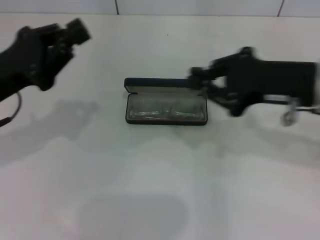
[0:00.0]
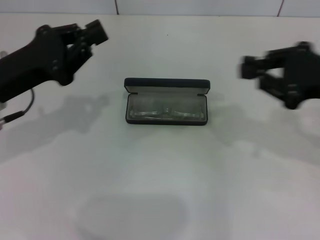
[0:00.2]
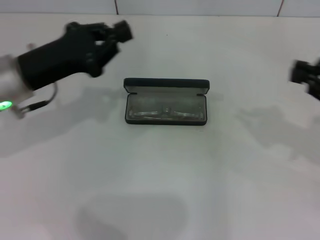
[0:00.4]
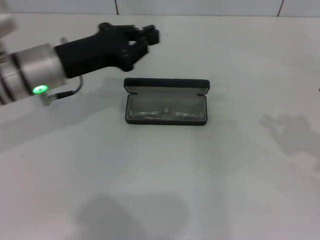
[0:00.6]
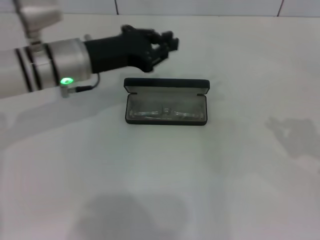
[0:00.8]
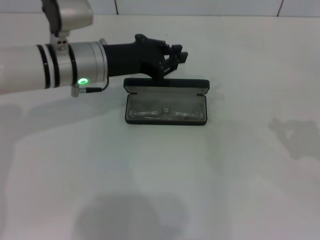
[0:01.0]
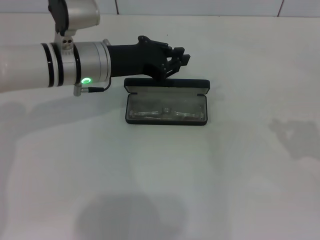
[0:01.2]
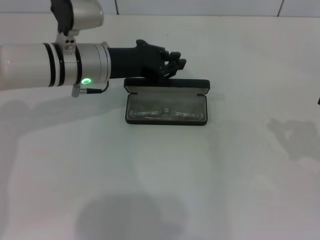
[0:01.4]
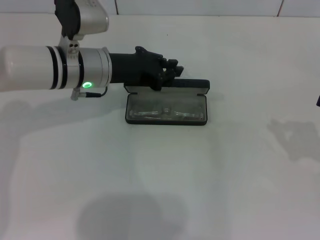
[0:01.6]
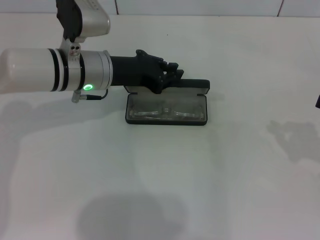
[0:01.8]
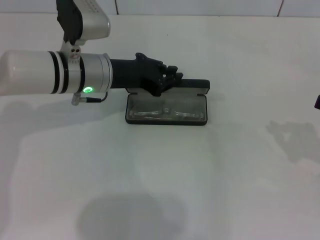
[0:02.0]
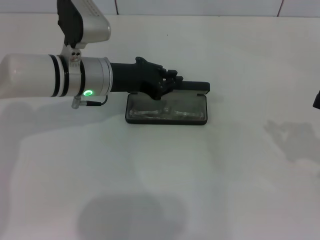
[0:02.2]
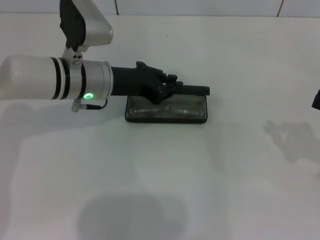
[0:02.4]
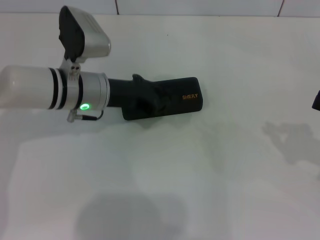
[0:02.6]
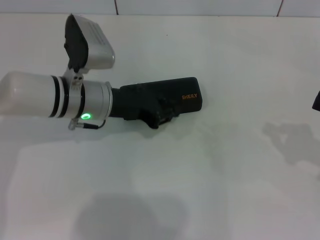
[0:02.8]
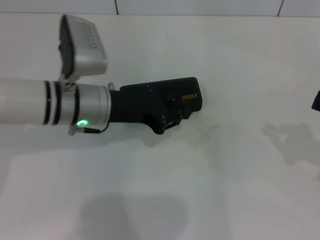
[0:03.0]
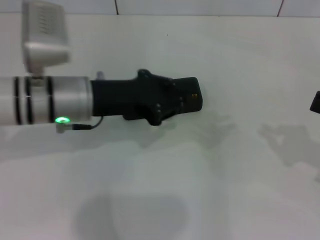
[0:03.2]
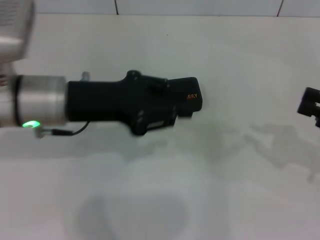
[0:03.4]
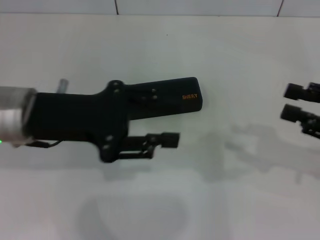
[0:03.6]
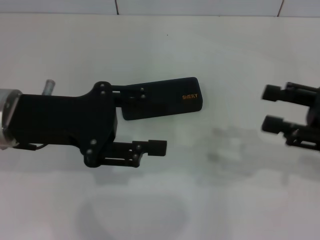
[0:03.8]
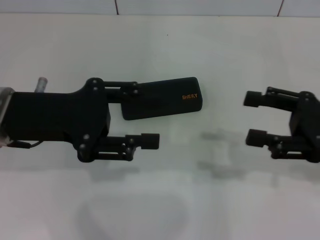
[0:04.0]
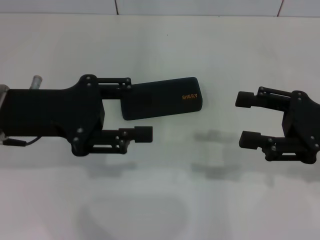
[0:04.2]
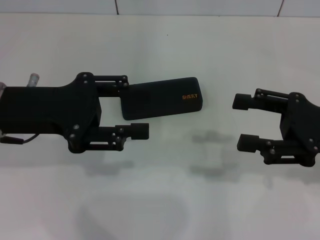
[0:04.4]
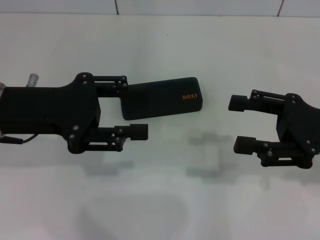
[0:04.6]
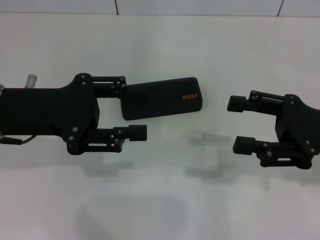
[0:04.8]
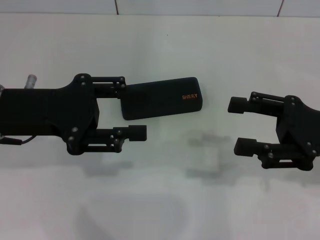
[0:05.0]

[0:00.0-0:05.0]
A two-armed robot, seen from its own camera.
Step, 0:00.0 to 0:02.8: Close the glasses case with your left hand.
0:00.0 to 0:01.6: The left gripper shifts some 15 cm to the right and forward. Meanwhile the right gripper moves to the right and downward, about 20 cm.
0:01.6 to 0:03.4: The left gripper travels backward by some 10 cm.
0:03.4 to 0:05.0: Both grippers move to the left, roughly 5 cm. The left gripper opens; the right gripper opens.

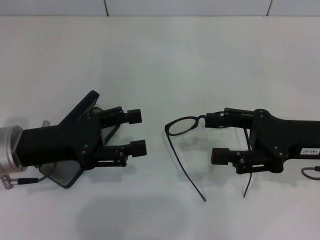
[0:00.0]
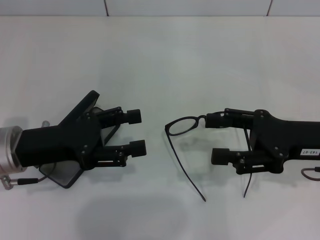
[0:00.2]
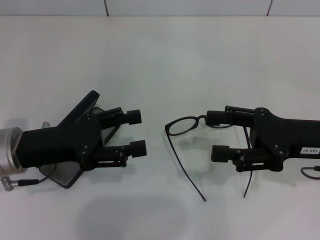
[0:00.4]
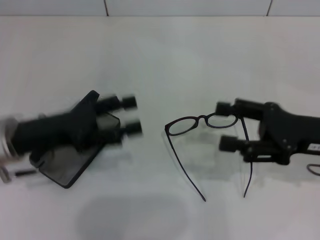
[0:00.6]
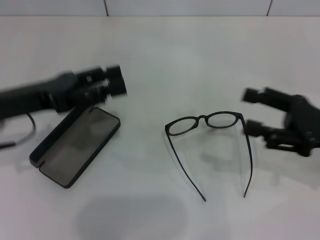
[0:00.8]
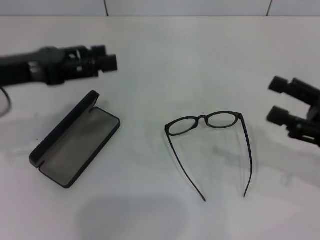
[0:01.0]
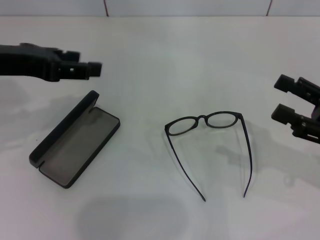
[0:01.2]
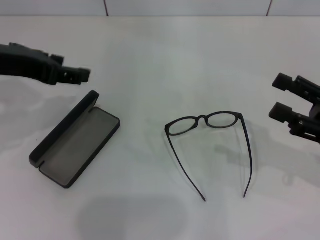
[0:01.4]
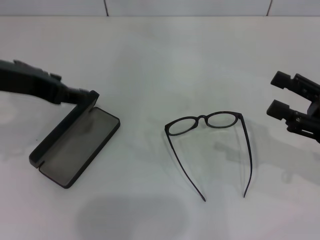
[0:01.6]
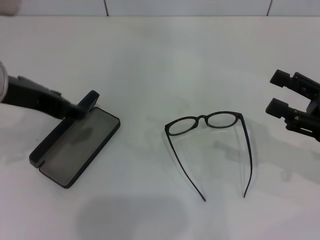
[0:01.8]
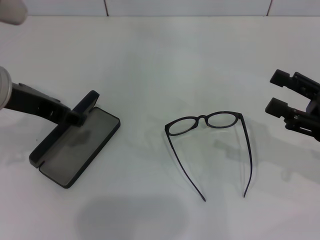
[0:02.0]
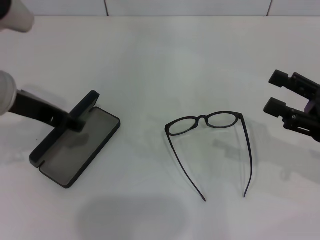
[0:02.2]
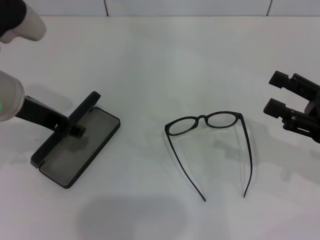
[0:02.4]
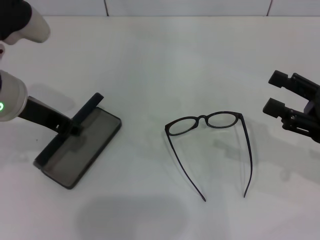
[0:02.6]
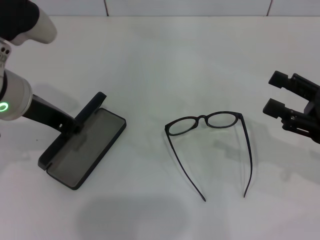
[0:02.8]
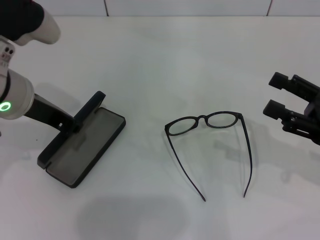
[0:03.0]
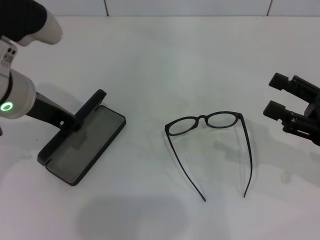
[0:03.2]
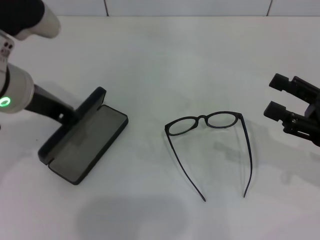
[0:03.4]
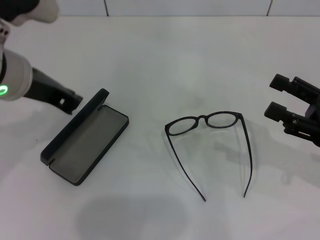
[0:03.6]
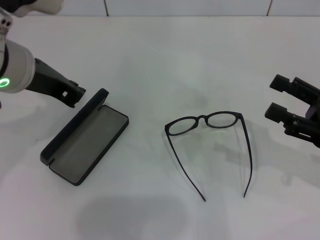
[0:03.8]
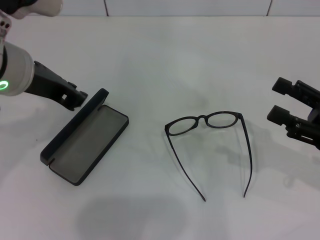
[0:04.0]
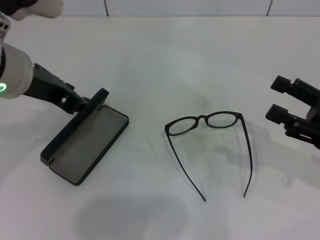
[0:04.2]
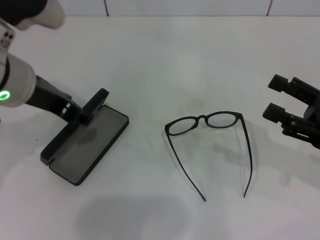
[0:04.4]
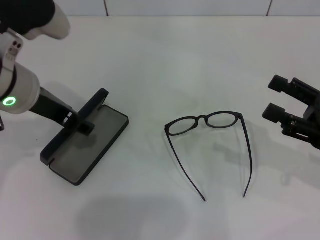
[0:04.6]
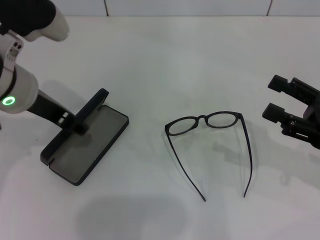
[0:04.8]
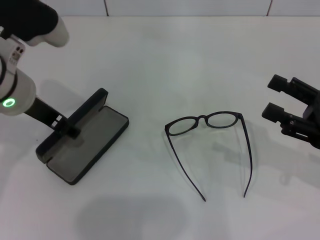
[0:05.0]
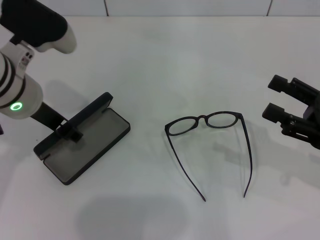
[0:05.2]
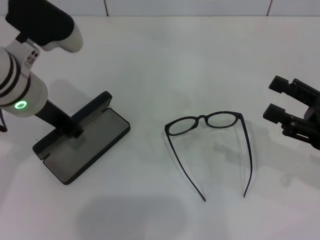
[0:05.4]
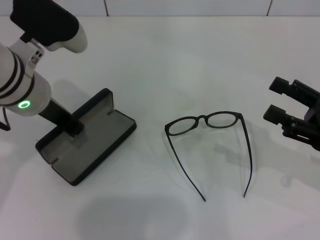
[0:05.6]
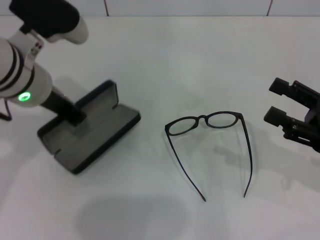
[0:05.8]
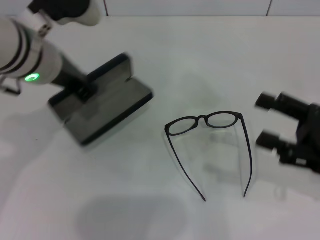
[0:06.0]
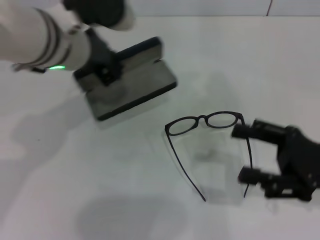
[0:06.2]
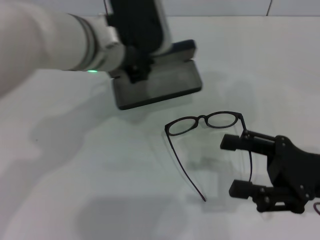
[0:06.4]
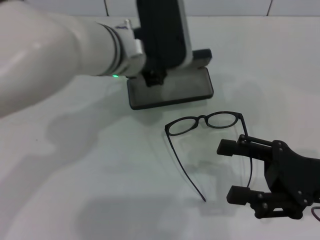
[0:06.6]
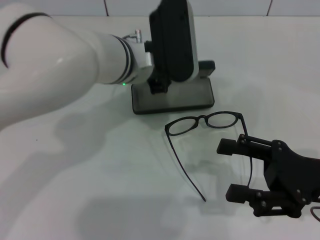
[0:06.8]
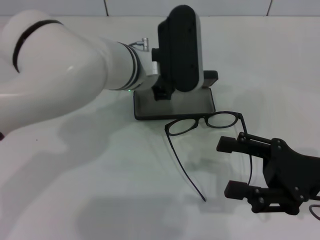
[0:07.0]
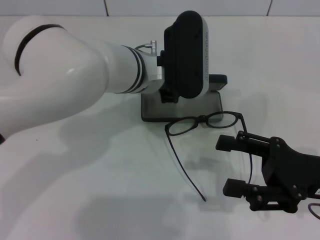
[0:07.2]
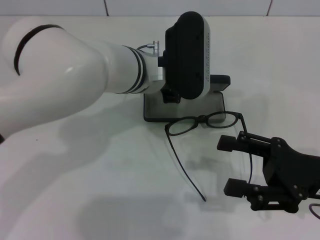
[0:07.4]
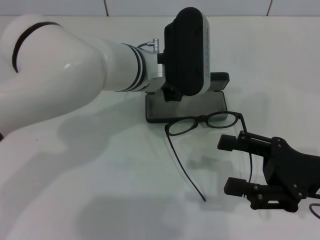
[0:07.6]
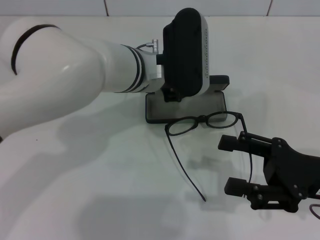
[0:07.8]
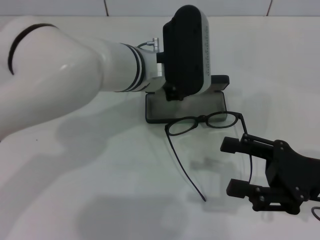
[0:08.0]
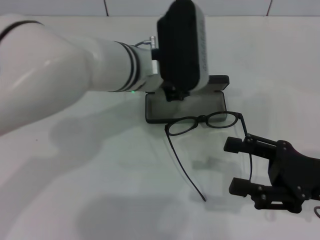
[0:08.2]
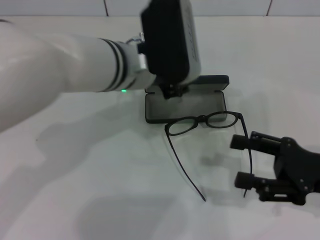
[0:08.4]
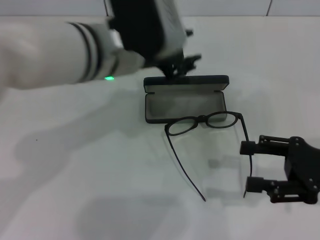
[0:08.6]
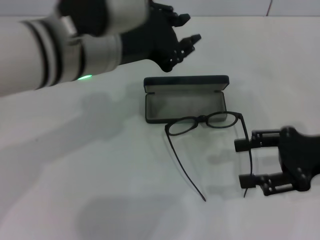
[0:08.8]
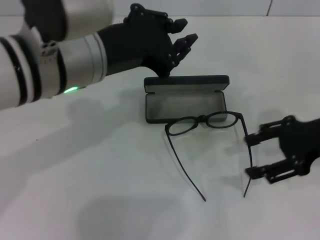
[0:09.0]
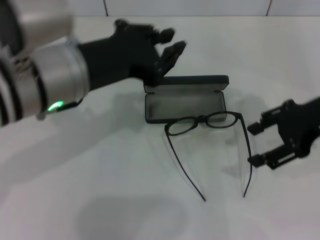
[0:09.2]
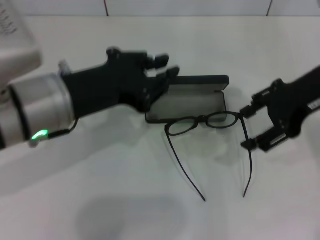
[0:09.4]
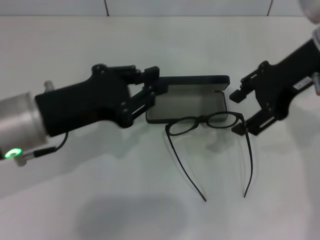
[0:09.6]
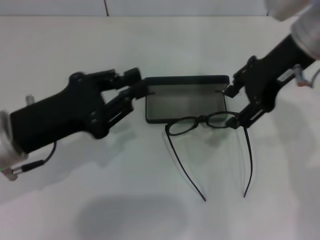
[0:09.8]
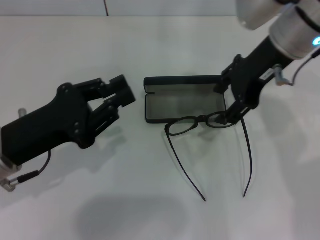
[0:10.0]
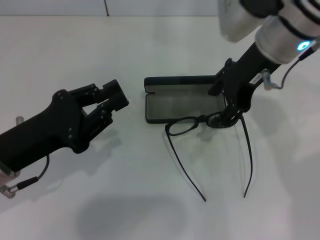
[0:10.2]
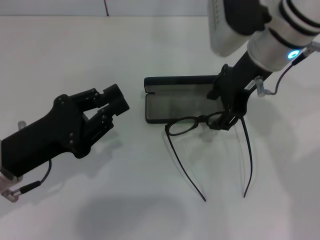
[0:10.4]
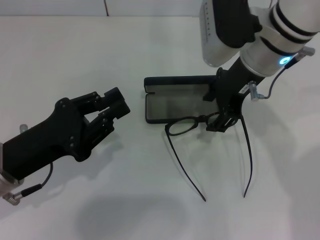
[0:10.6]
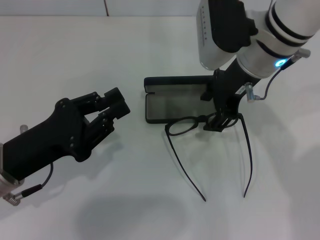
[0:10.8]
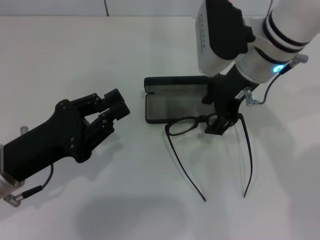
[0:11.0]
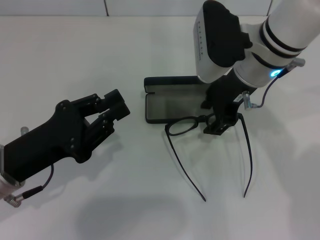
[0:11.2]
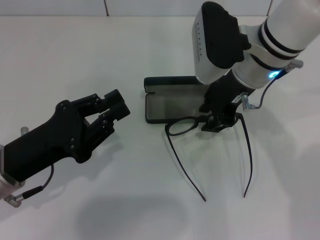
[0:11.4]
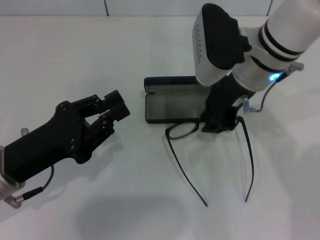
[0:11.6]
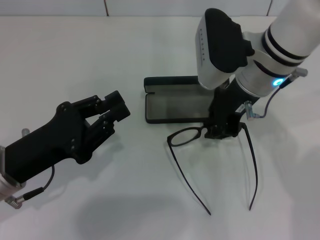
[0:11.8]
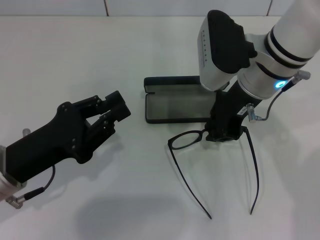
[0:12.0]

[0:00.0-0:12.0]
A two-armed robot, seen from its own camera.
Step, 0:00.0 to 0:05.4: Grab the glasses case with your left hand.
Step, 0:05.6 to 0:08.0: Place the glasses case in the center of the table with your left hand.
0:00.0 to 0:01.6: The right gripper shifts approximately 5 cm to the right. The left gripper shifts roughly 15 cm upward.
0:01.6 to 0:03.0: The left gripper travels downward by roughly 5 cm, and closes.
0:03.0 to 0:04.4: The grippers move only a little.
0:06.0 to 0:07.6: The left gripper shifts approximately 15 cm to the right and downward.
0:07.6 to 0:09.0: The right gripper heads upward and forward, covering roughly 10 cm, while the left gripper is displaced upward, backward and to the left by some 15 cm.
0:09.0 to 0:10.4: The right gripper is displaced to the left and forward by approximately 15 cm. The left gripper moves downward, to the left and backward, some 20 cm.
0:10.4 to 0:12.0: The right gripper closes up.

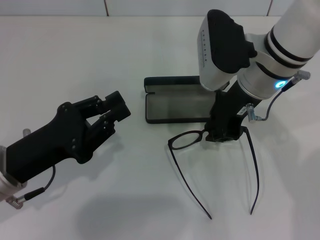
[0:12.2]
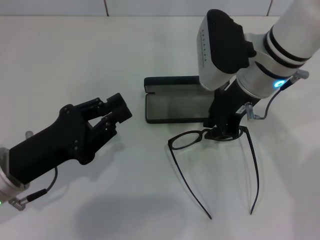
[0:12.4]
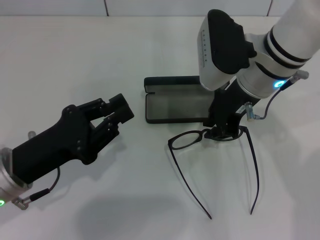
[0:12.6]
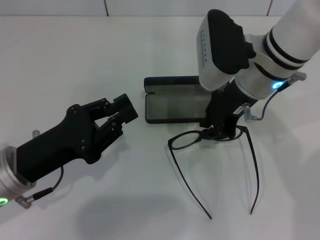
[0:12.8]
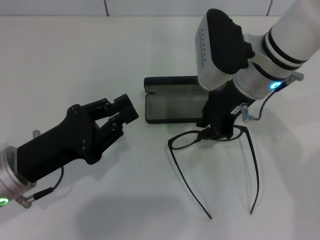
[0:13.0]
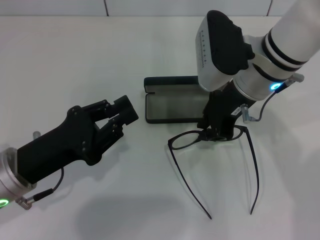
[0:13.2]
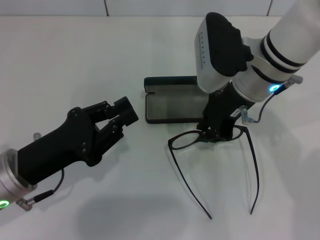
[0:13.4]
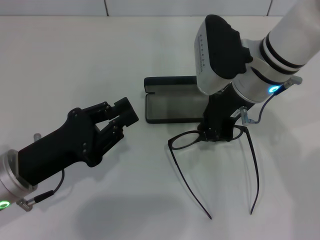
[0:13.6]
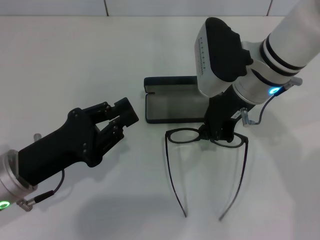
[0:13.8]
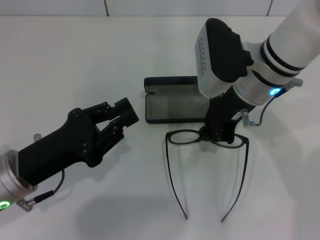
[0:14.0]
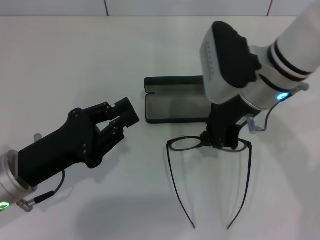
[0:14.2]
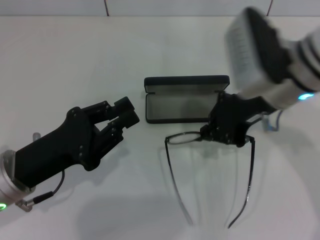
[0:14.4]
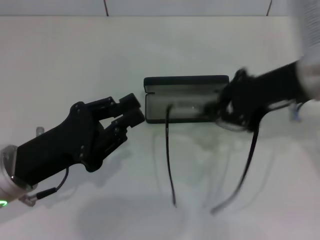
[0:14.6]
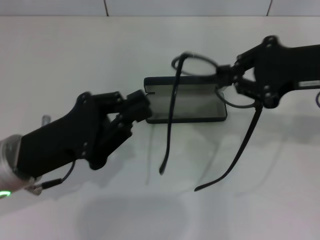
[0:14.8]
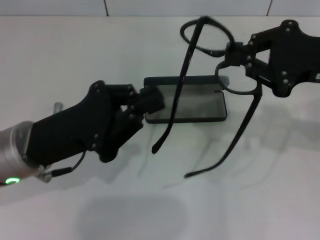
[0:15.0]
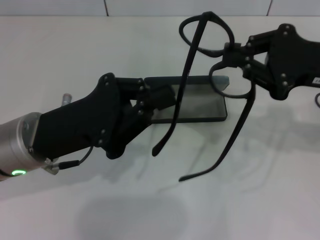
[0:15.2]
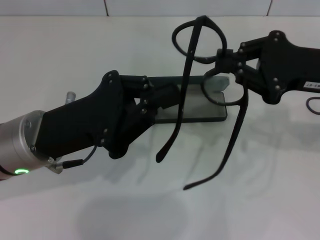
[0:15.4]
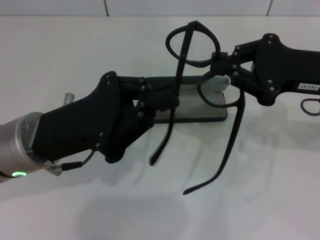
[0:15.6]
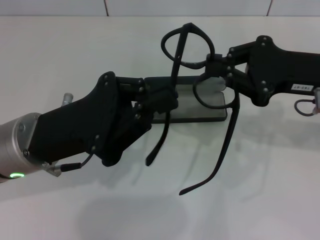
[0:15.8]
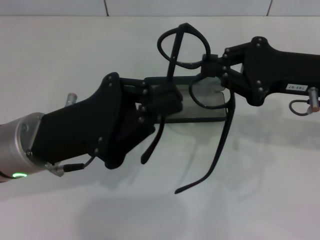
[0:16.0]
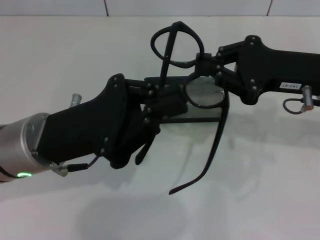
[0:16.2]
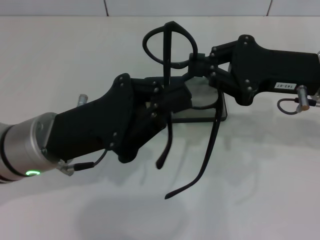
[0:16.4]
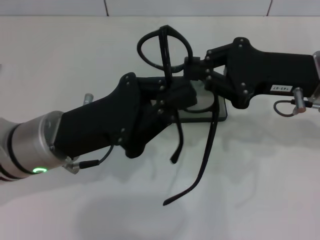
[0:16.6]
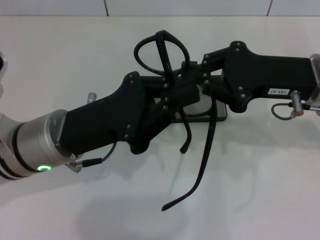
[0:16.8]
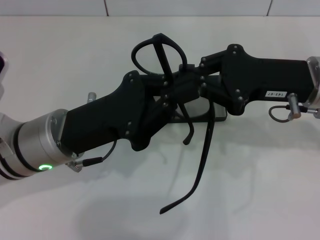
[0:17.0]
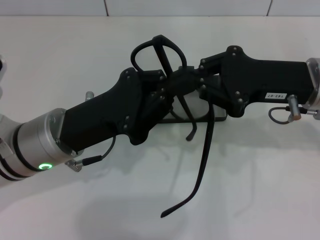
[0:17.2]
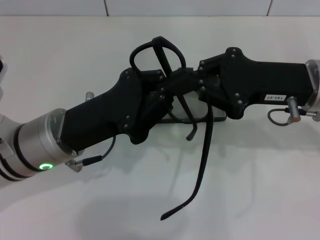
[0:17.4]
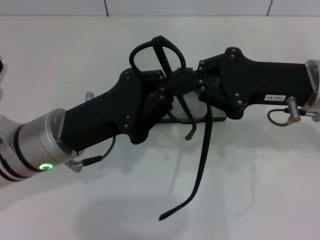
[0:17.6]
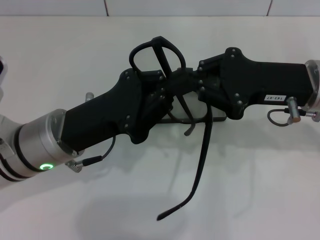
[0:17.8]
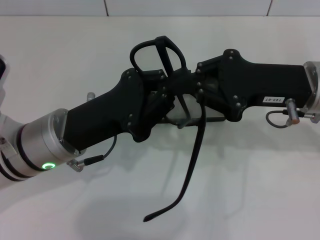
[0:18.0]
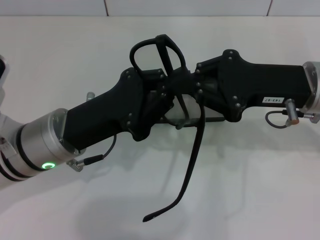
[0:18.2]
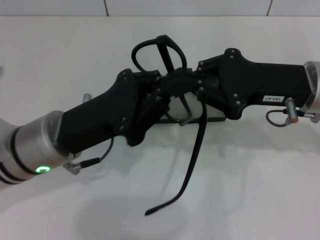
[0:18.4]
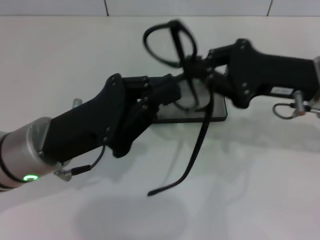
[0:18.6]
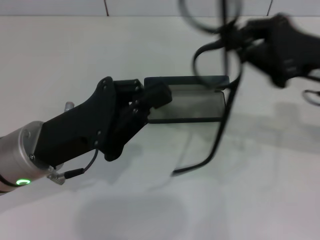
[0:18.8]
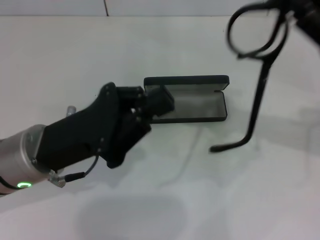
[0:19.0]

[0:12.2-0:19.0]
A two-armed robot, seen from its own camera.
0:12.2 to 0:13.6: Neither gripper changes place.
0:13.6 to 0:15.0: The right gripper is displaced to the right and backward by roughly 15 cm. The left gripper moves approximately 5 cm.
0:15.0 to 0:16.2: The right gripper ends up approximately 5 cm from where it was.
0:16.2 to 0:17.6: The grippers make only small movements.
0:17.6 to 0:19.0: The right gripper is displaced to the right by approximately 5 cm.
